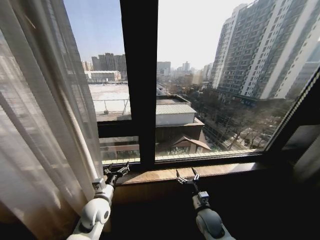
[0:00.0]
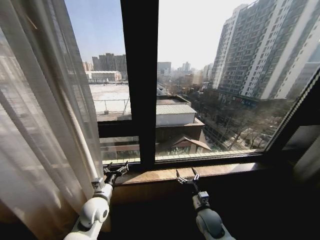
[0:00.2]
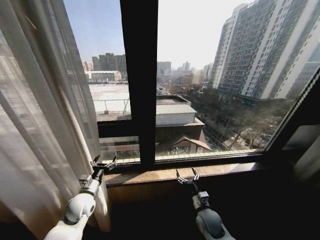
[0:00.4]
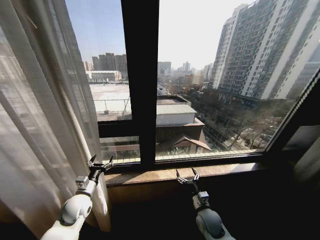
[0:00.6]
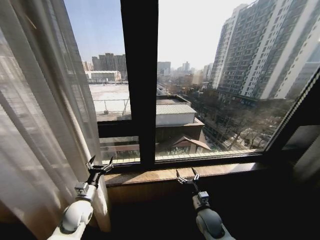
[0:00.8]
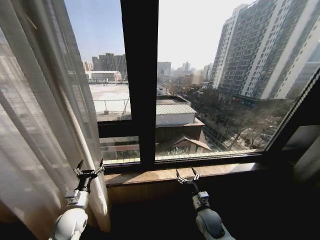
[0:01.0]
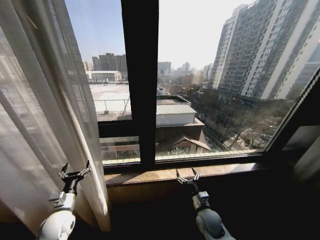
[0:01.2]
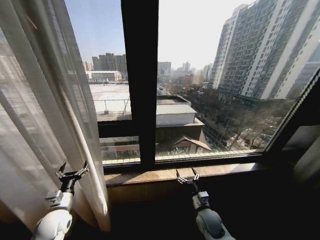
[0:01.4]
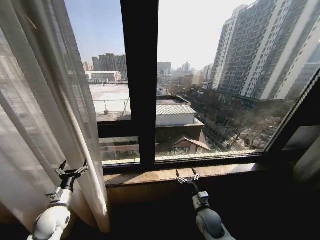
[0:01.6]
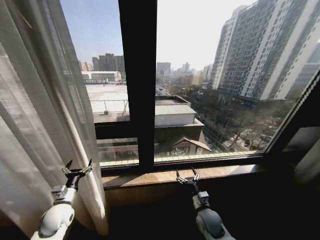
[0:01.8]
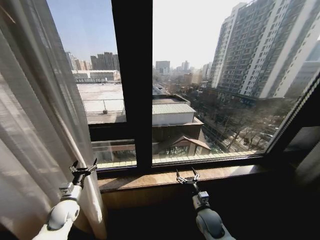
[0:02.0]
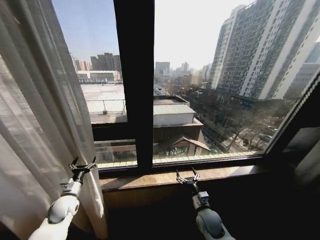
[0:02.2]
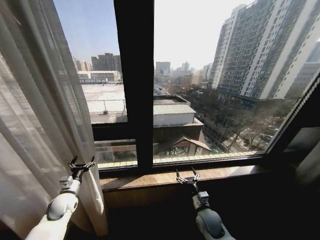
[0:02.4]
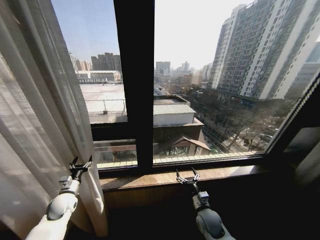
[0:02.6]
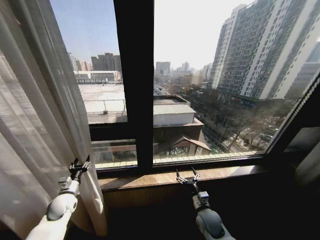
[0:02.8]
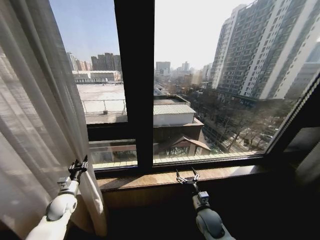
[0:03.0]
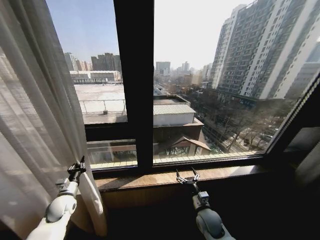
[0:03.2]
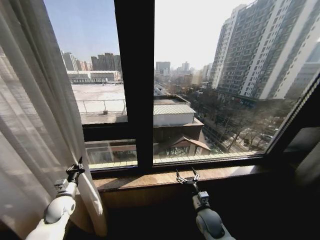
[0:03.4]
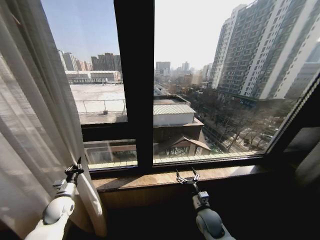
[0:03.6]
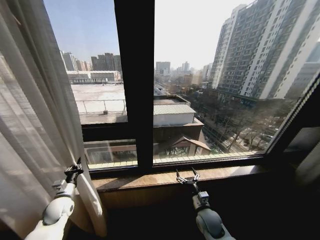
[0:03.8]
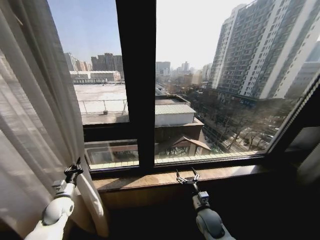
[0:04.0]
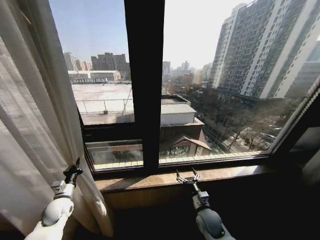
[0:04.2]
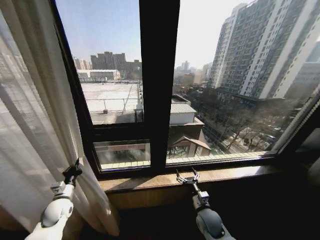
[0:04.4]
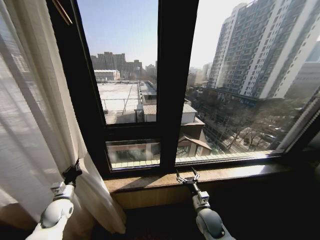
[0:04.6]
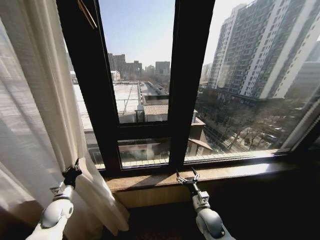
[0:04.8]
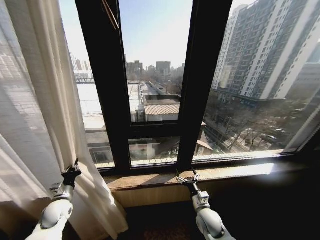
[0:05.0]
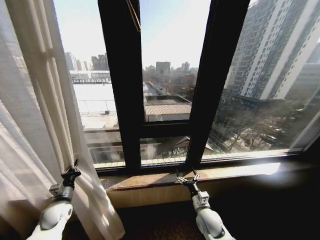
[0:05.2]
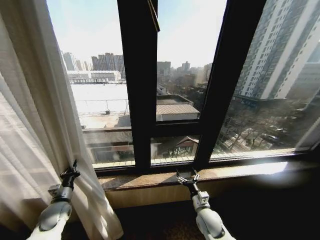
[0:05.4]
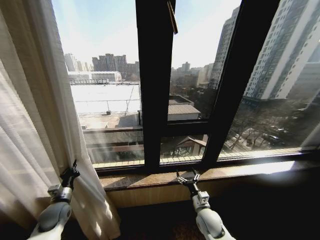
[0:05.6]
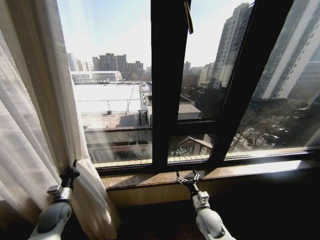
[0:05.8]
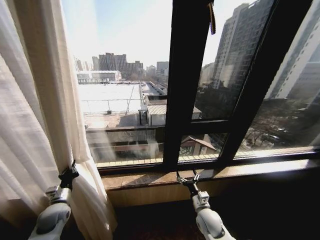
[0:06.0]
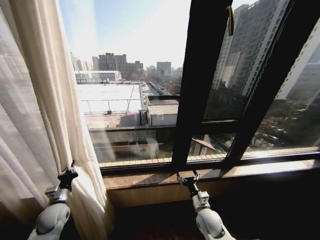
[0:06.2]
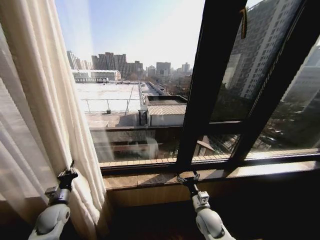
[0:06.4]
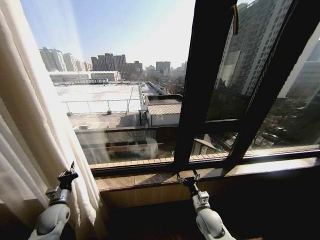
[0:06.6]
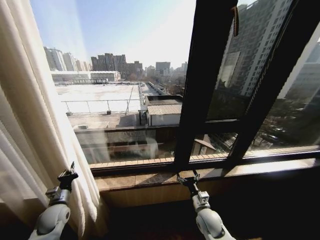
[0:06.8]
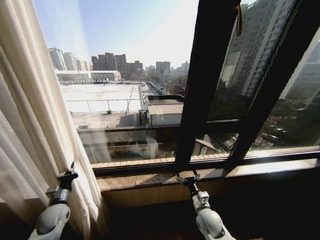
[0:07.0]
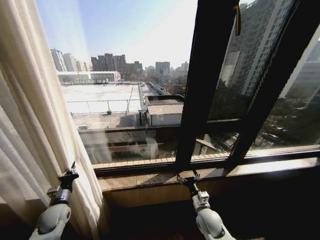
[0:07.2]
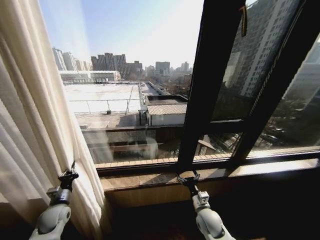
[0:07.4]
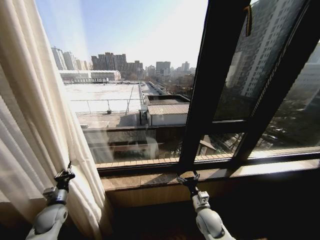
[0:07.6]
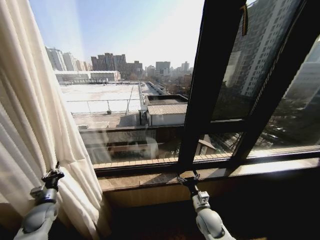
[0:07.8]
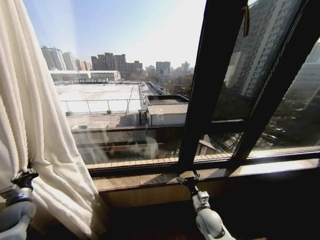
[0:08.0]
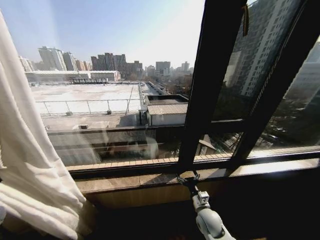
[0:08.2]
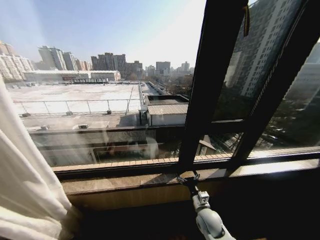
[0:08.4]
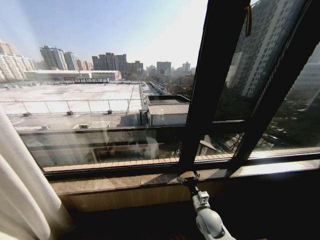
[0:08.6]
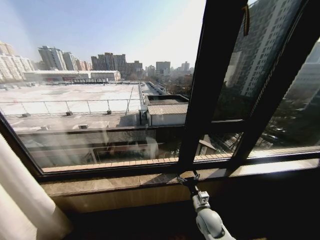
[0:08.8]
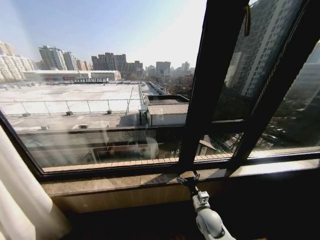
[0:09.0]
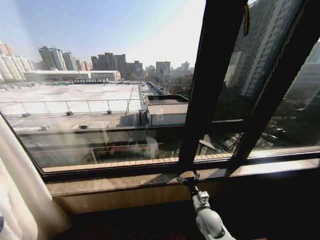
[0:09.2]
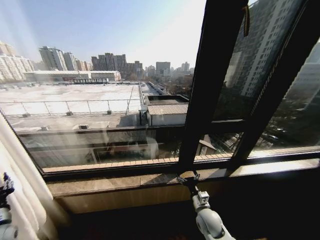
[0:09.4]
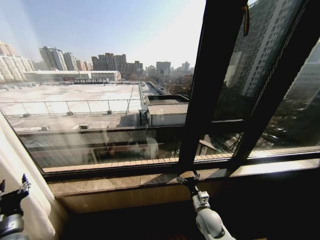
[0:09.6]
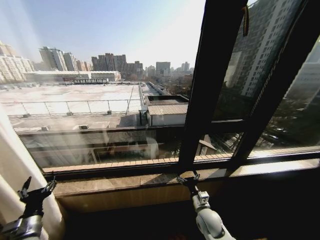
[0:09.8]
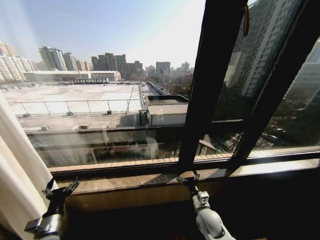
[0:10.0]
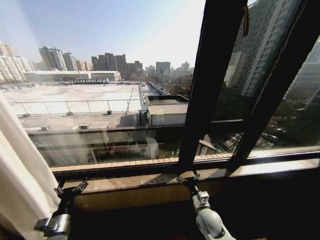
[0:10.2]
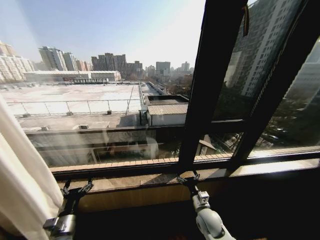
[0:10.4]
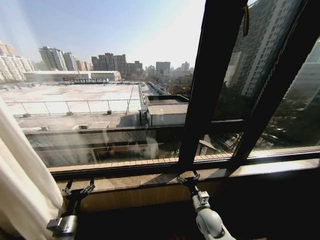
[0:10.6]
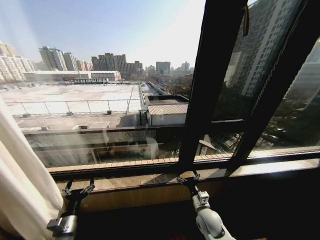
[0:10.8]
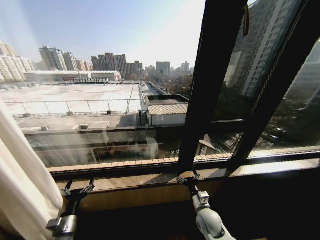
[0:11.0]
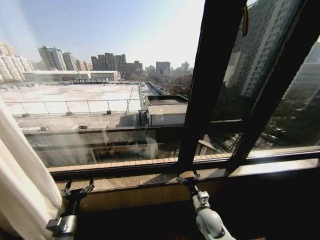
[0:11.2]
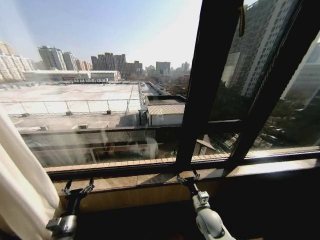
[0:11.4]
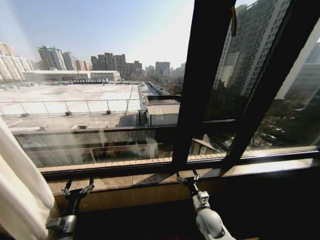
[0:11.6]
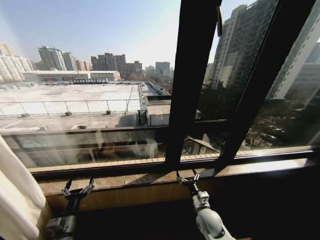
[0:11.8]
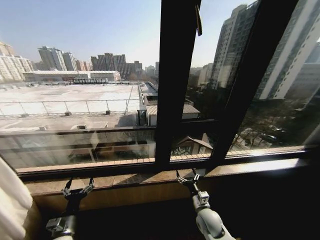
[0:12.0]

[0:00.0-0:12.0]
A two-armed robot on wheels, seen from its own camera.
Task of the whole recording: Open the curtains by pulling them apart, changing their state from closed to fully open.
0:00.0 to 0:01.6: The left gripper shifts some 15 cm to the left.
0:01.6 to 0:03.0: The left gripper moves forward, about 5 cm, and closes.
0:03.0 to 0:04.4: The left gripper closes up.
0:07.6 to 0:09.0: The left gripper travels to the left by about 25 cm.
0:09.0 to 0:10.4: The left gripper heads to the right, covering about 35 cm, and opens up.

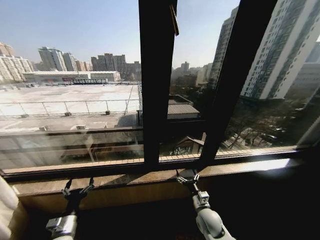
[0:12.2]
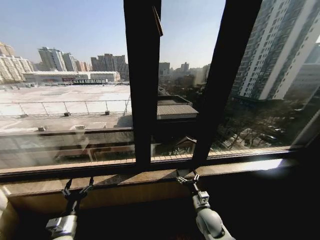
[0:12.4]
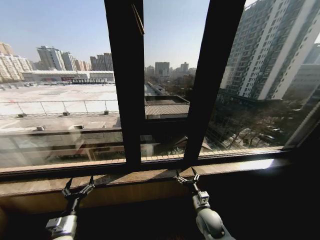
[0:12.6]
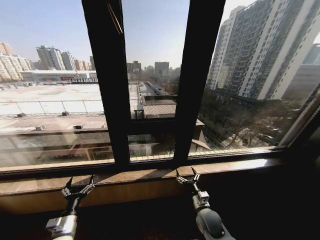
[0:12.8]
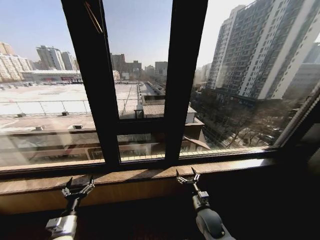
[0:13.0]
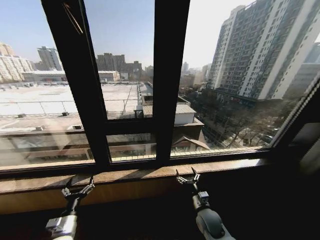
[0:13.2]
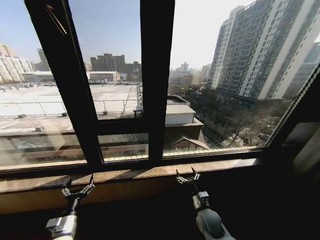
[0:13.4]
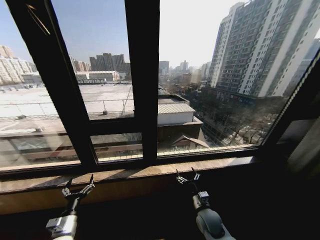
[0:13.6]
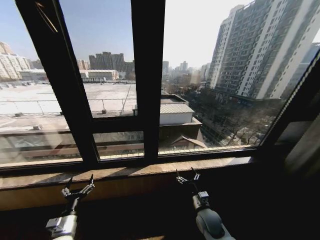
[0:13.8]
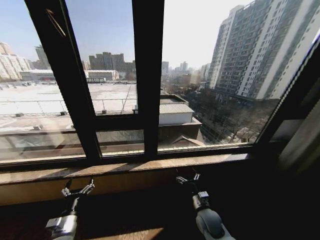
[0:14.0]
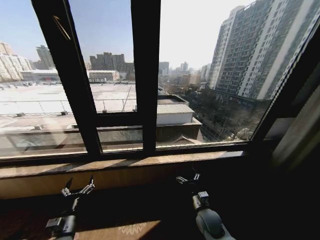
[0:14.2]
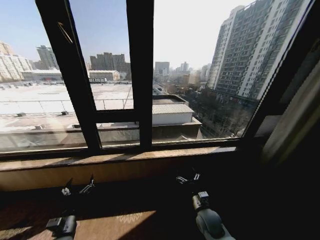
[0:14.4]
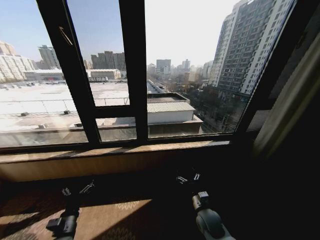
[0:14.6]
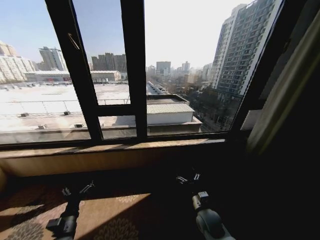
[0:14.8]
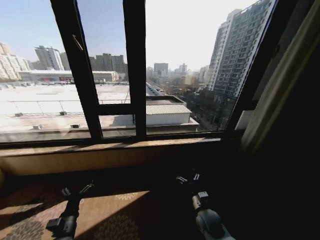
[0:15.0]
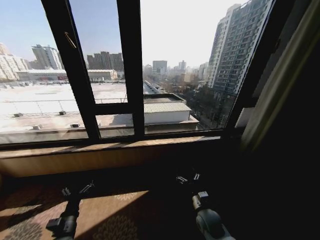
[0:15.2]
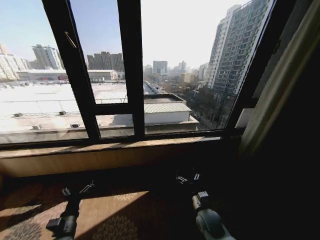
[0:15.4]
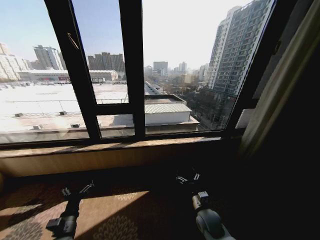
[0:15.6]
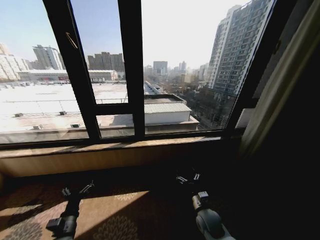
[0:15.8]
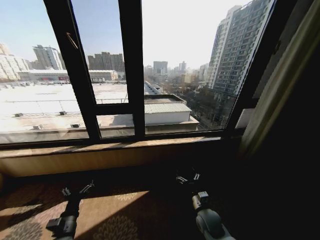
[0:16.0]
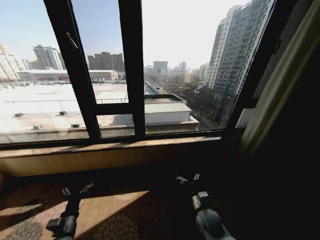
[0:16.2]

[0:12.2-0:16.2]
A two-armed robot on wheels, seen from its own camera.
Task of the whole recording: Open the curtains by pulling them apart, changing their state from closed to fully open.
0:14.8 to 0:16.2: Neither gripper changes place.

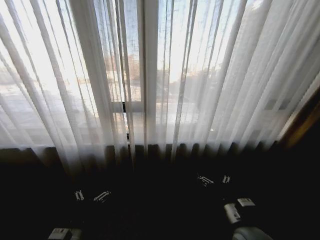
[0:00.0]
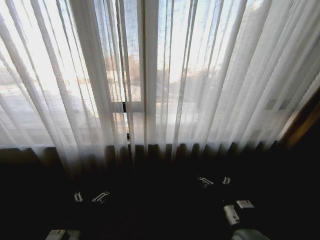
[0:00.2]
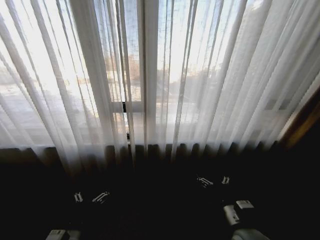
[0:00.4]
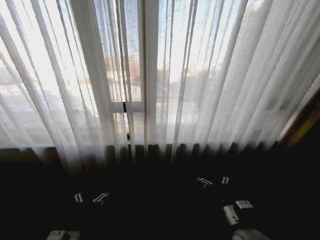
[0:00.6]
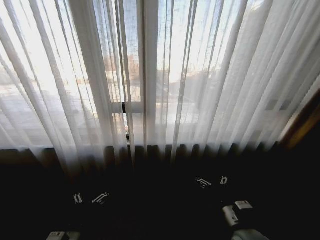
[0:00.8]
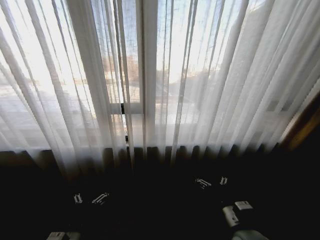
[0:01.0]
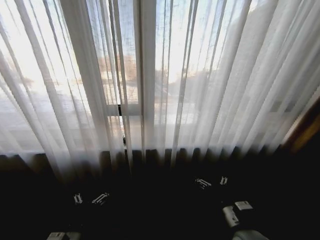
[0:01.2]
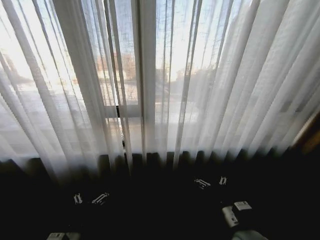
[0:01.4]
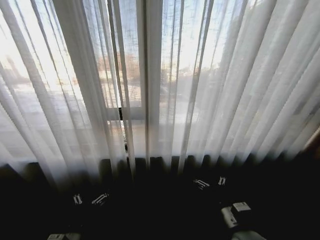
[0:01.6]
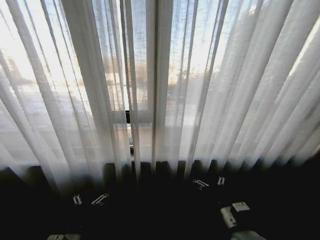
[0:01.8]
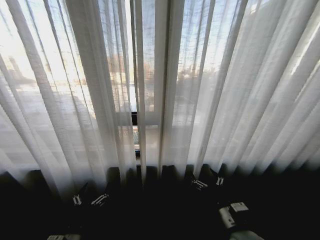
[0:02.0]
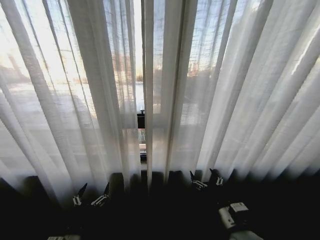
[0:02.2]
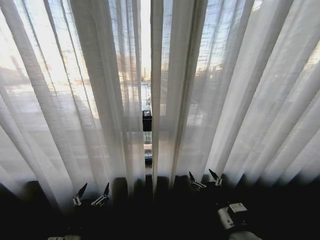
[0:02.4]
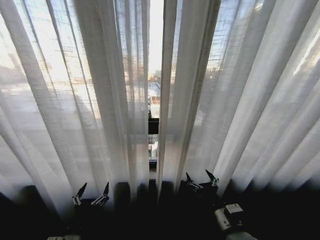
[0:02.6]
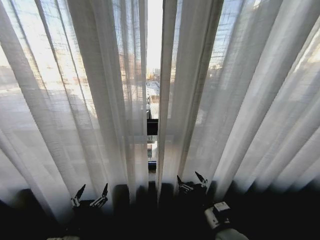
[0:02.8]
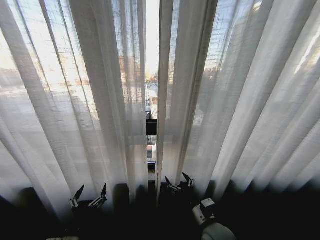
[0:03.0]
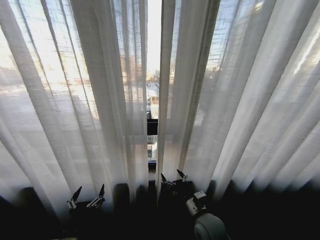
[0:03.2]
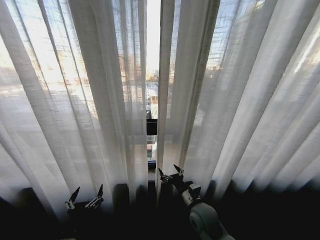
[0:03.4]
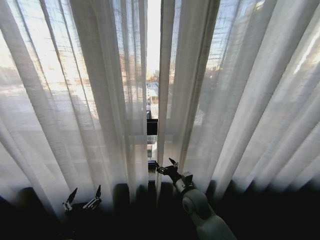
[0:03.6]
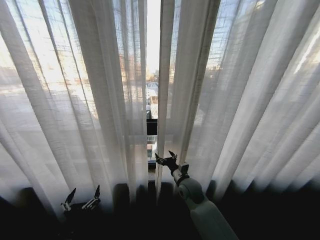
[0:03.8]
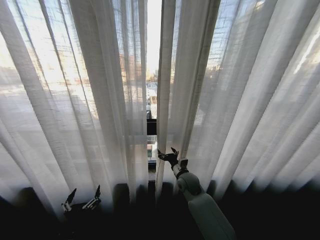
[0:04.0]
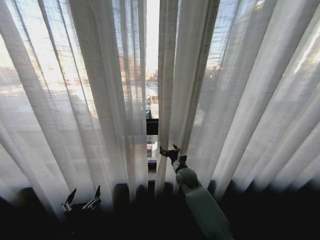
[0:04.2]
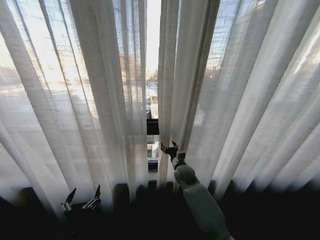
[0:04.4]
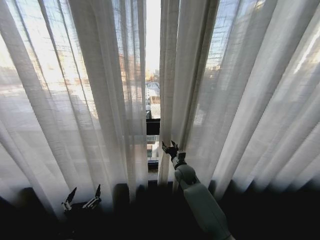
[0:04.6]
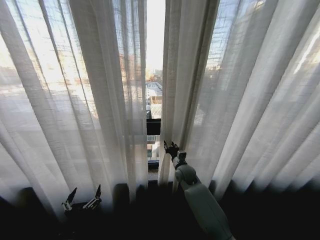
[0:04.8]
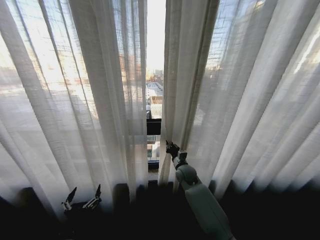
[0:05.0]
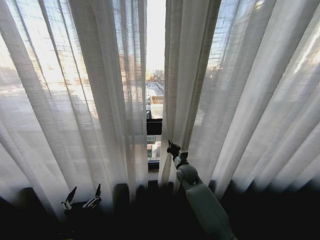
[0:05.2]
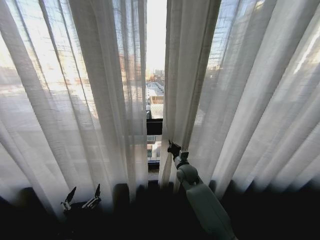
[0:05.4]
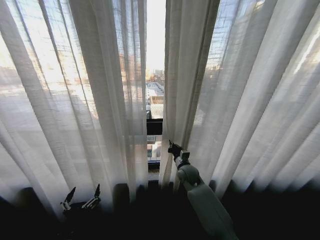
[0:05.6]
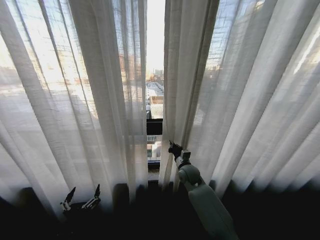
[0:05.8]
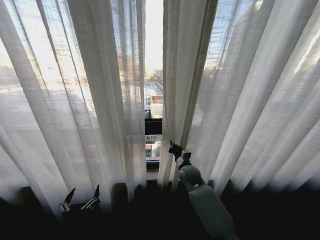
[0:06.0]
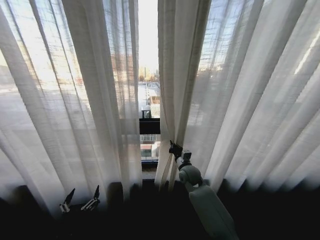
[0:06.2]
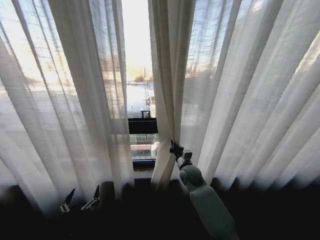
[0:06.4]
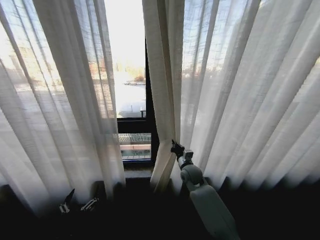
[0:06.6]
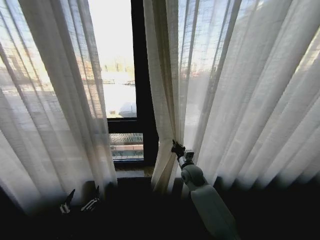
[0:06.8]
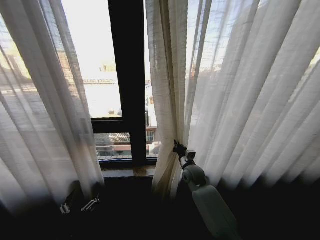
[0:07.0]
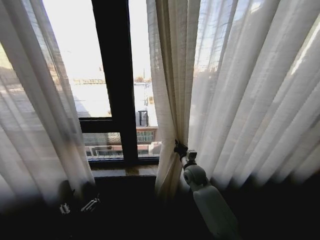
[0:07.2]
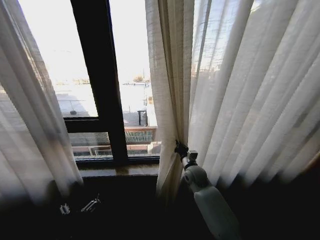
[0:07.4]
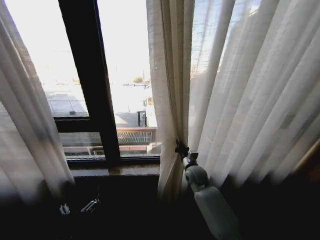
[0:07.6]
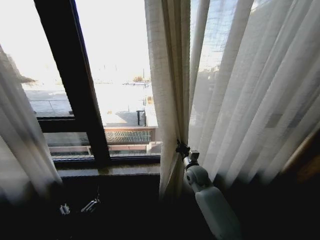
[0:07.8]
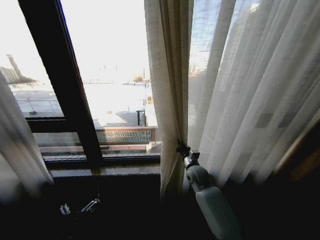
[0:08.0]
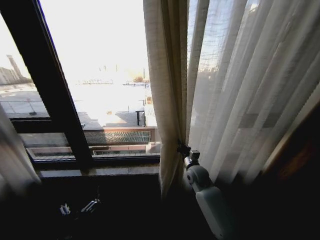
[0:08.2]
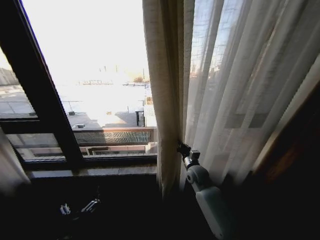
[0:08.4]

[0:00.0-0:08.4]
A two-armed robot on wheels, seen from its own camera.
Task of the whole recording: Open the curtains by pulling them apart, changing their state from closed to fully open.
0:02.8 to 0:04.2: The right gripper travels forward by roughly 25 cm.
0:04.2 to 0:05.6: The right gripper closes.
